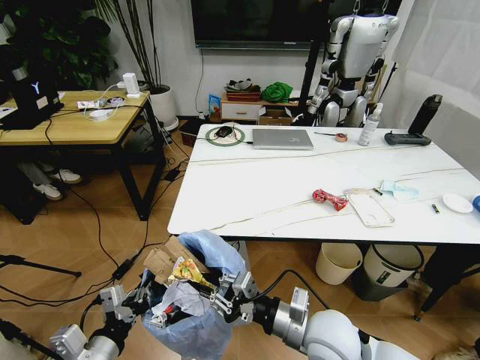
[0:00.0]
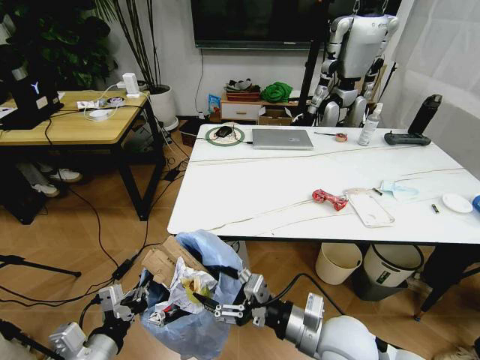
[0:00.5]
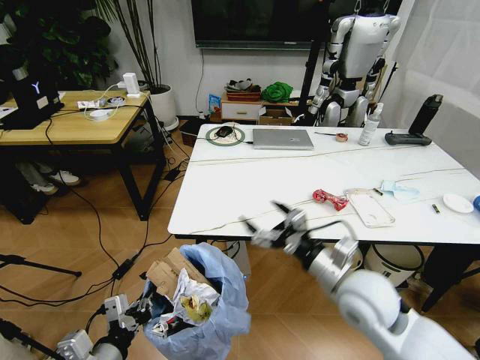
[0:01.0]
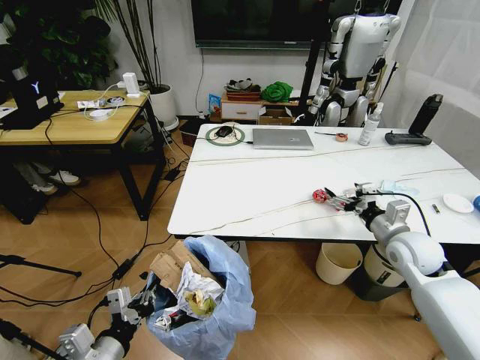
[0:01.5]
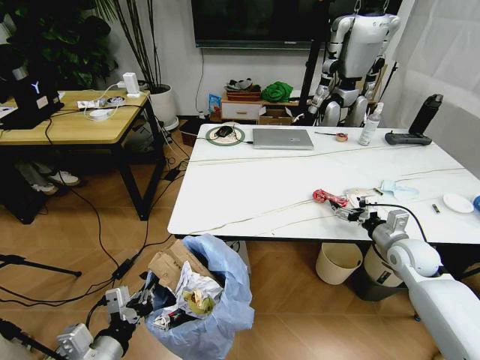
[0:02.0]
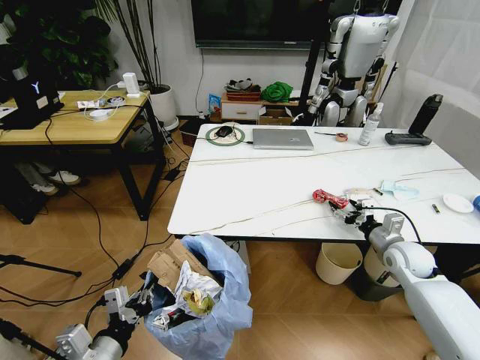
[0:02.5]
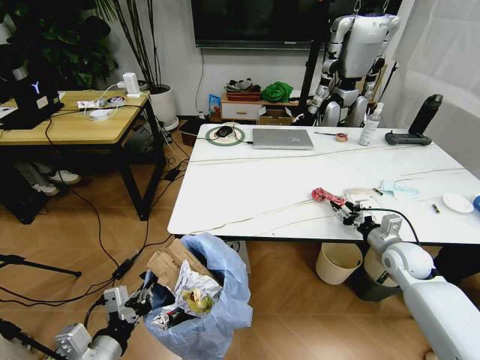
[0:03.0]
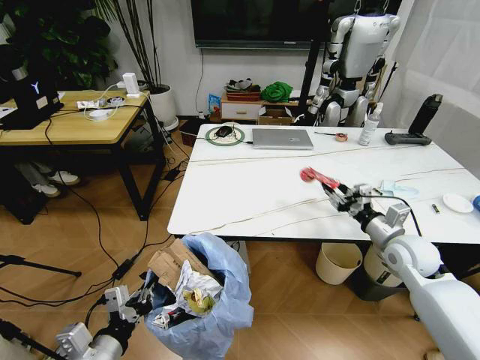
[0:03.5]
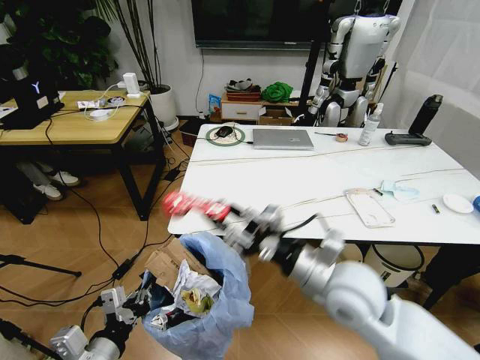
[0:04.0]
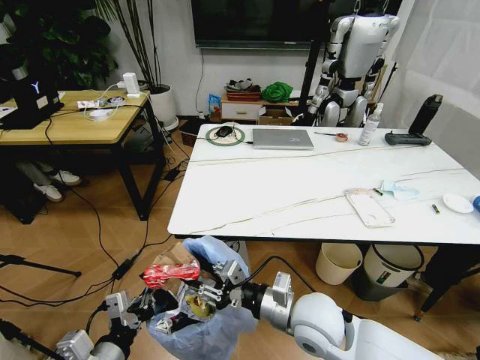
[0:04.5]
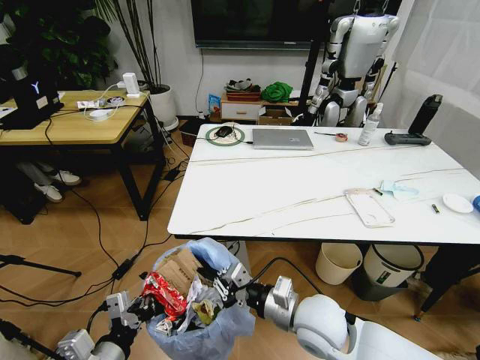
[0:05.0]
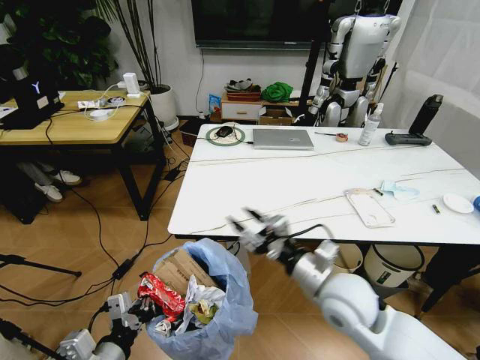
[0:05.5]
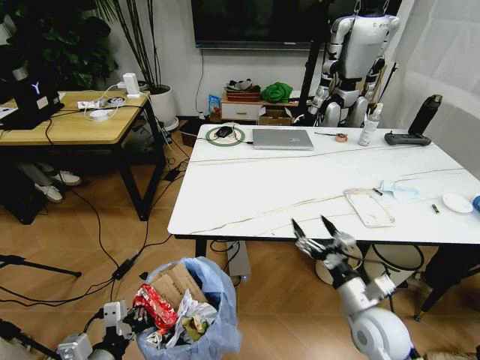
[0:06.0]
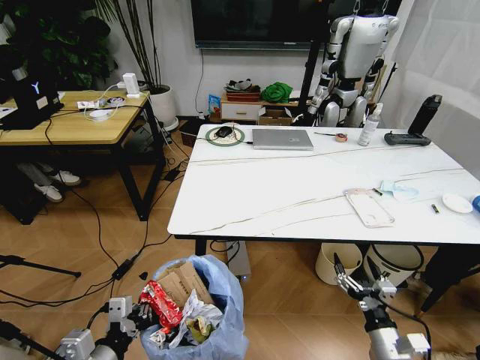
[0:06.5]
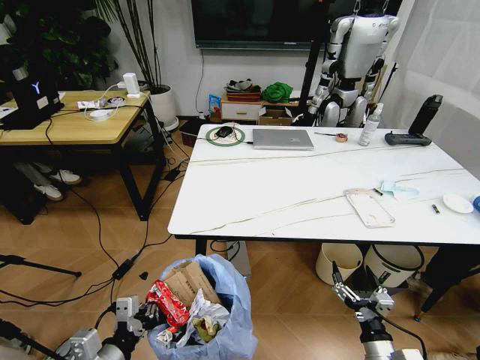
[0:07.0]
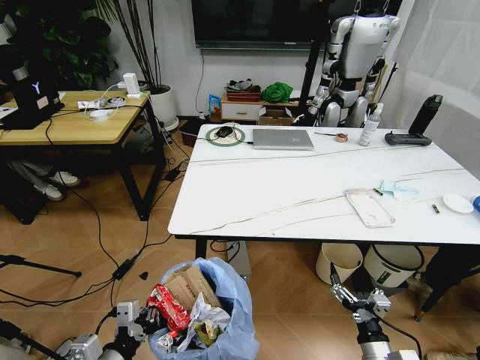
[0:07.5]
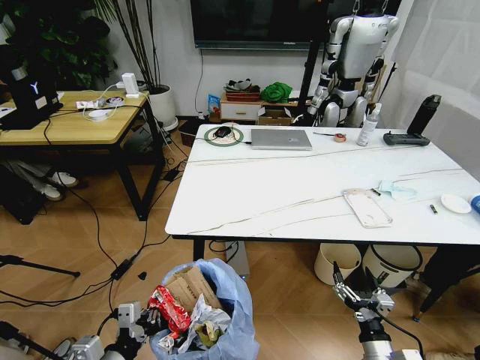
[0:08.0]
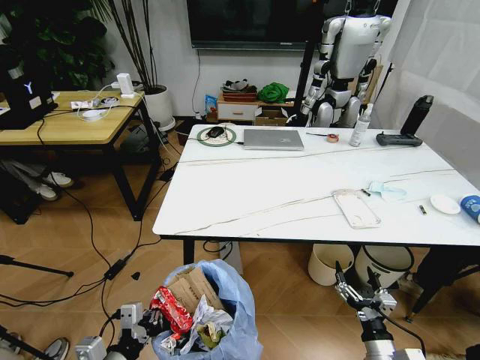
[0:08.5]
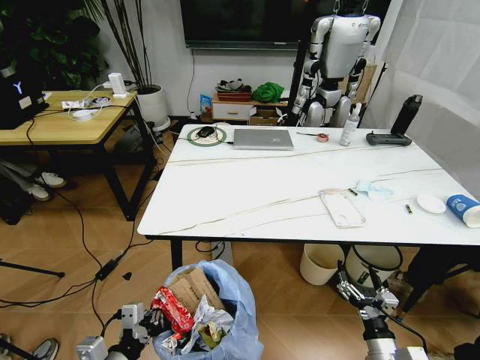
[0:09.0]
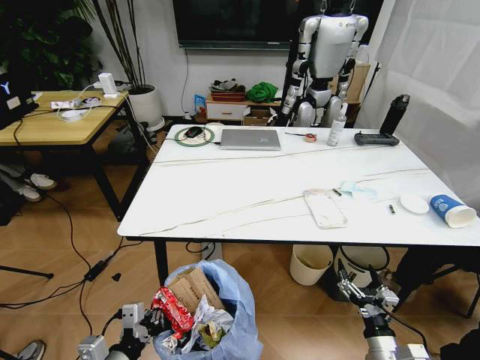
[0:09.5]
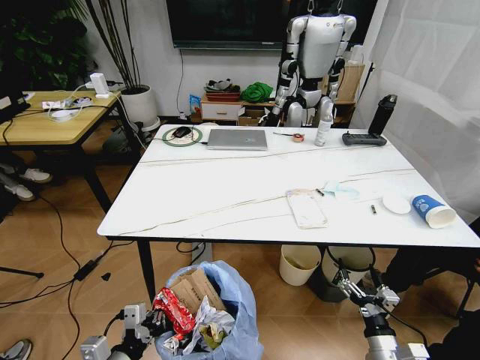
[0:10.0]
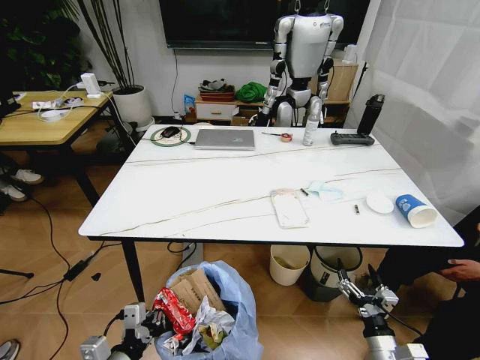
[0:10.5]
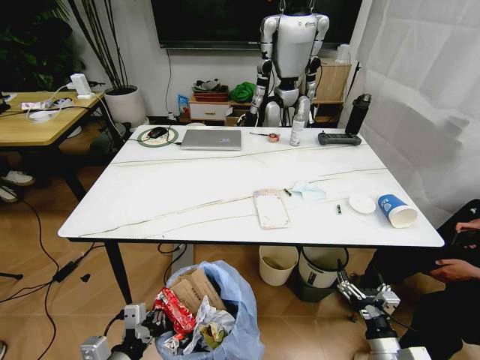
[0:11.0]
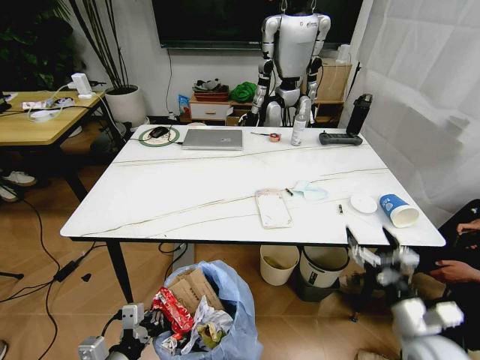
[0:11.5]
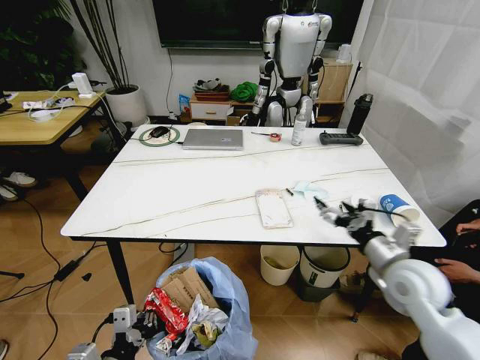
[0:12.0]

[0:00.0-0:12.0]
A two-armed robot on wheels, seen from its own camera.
Task of the whole recording: Pick up the trash bin and place the trash from the table into it.
0:00.0 to 0:02.0: The right gripper travels to the right and forward by about 30 cm, and opens up.
0:02.0 to 0:04.0: The right gripper is displaced to the left, backward and upward by some 30 cm, and closes its fingers.
0:04.0 to 0:06.0: The right gripper goes up and down, roughly 15 cm each way, reversing 2 times, and opens.
0:06.0 to 0:08.0: The right gripper goes some 15 cm downward and backward.
0:10.0 to 0:12.0: The right gripper goes approximately 25 cm upward and forward.

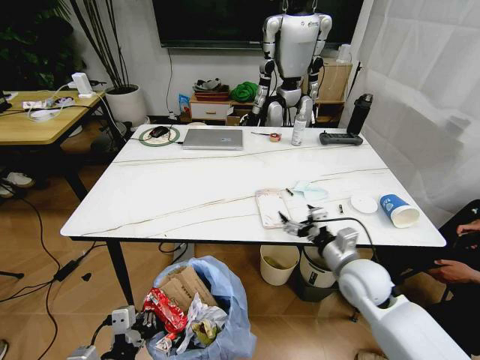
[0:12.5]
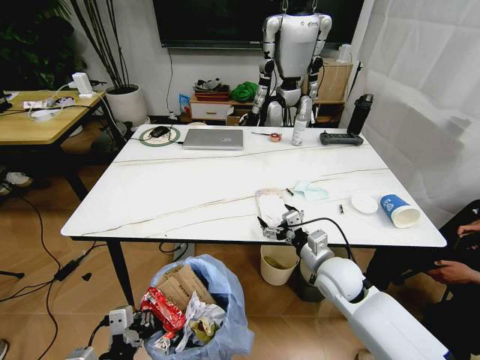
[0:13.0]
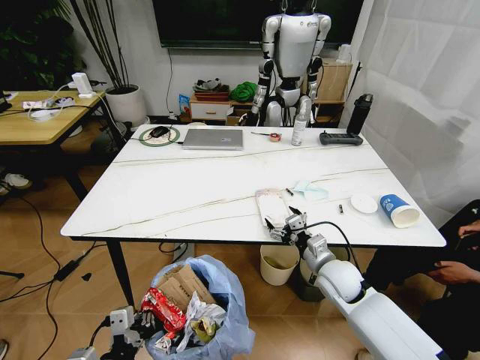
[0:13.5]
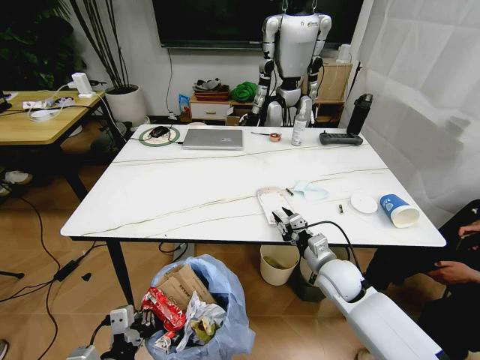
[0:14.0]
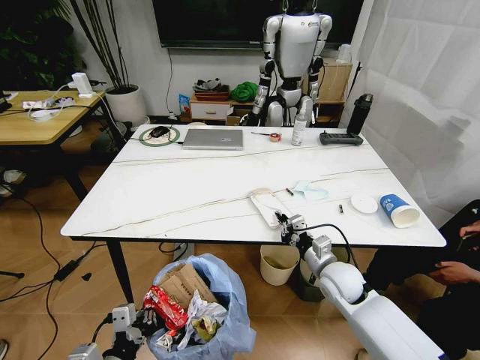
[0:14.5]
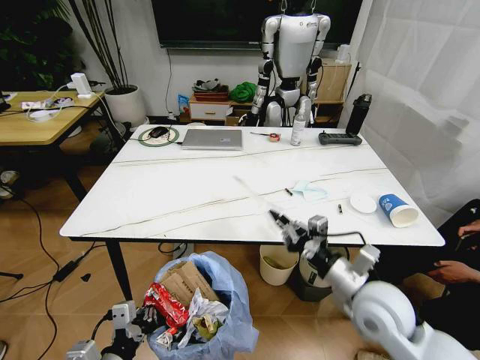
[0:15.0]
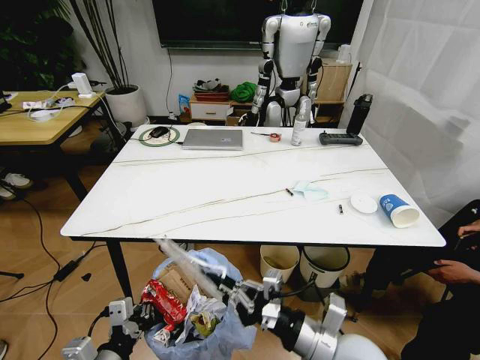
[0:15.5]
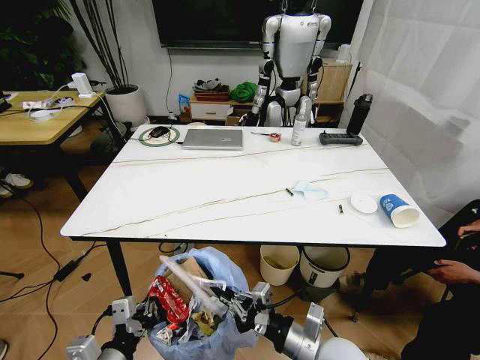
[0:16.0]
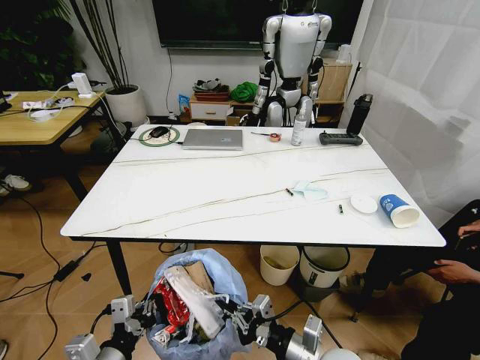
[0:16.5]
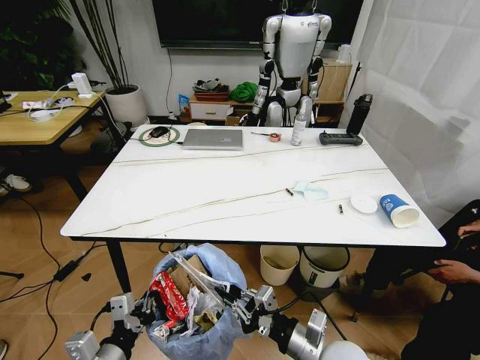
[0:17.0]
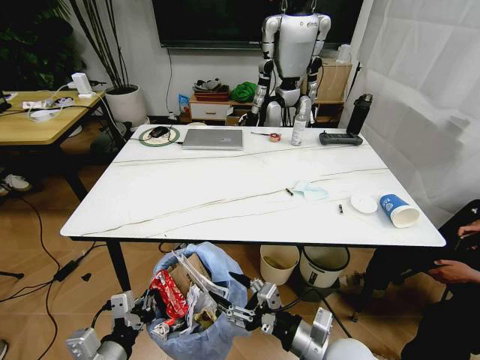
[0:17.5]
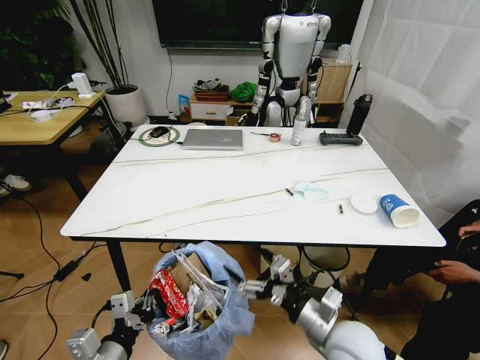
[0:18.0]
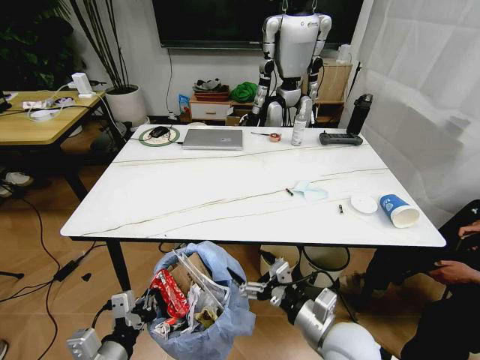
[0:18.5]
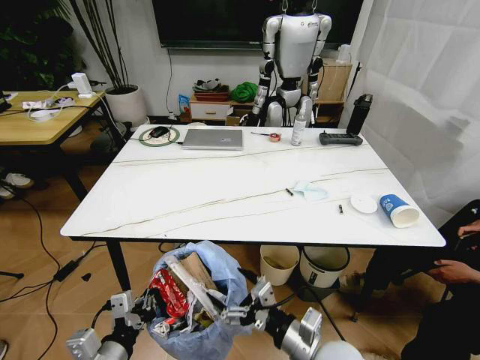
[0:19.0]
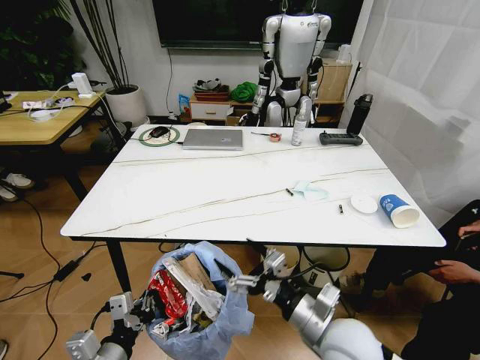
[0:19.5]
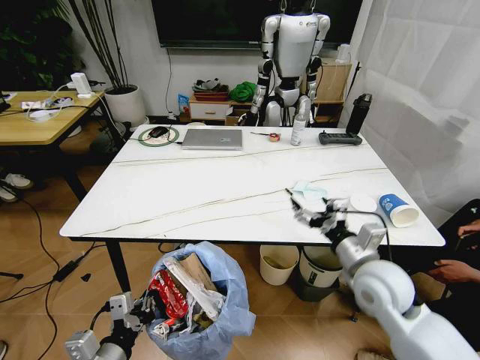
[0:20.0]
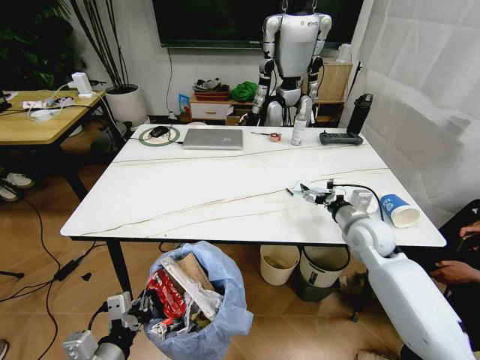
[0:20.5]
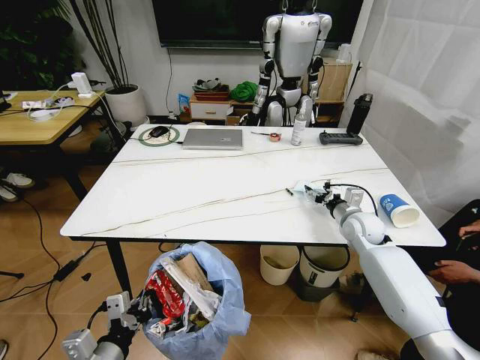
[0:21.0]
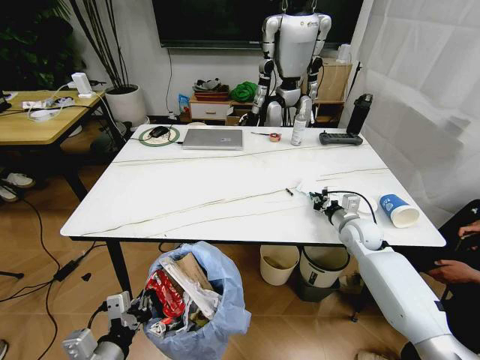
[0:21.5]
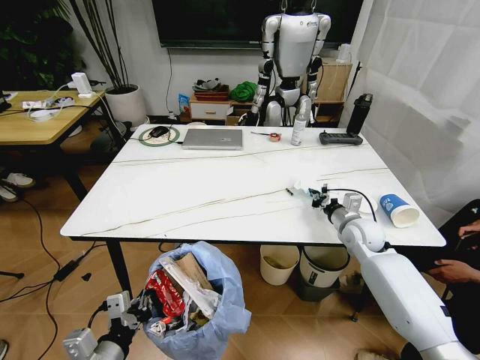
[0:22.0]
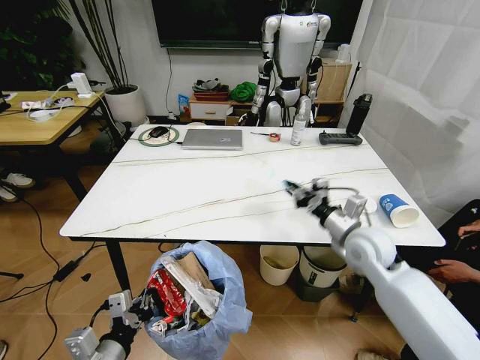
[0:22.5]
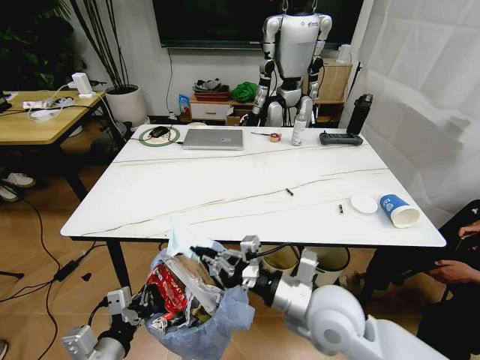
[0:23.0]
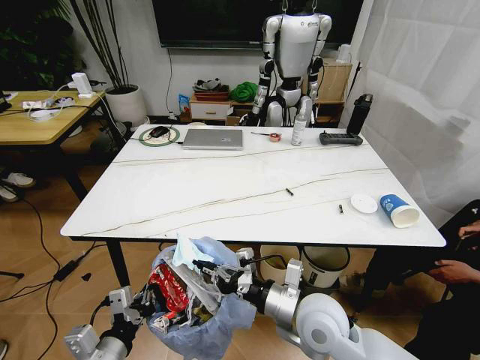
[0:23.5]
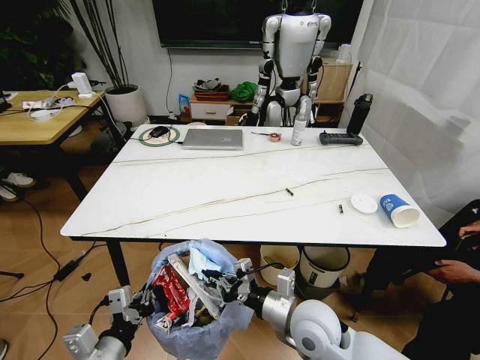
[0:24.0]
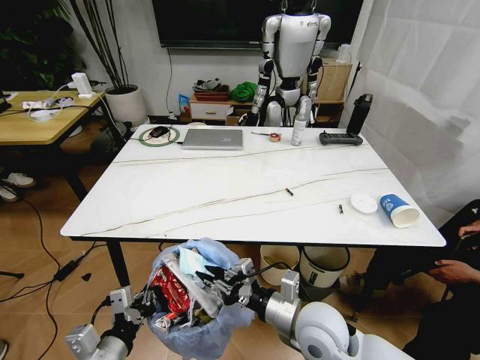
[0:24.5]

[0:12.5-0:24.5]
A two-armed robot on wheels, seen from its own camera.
Task of the whole recording: Pick up the trash bin and place the trash from the table into it.
0:12.5 to 0:14.5: The right gripper moves downward, roughly 5 cm, and closes up.
0:14.5 to 0:16.5: The right gripper travels backward by approximately 20 cm.
0:16.5 to 0:18.5: The right gripper opens.
0:18.5 to 0:20.5: The right gripper travels forward and to the right by approximately 25 cm.
0:20.5 to 0:22.5: The right gripper moves roughly 5 cm, and closes up.
0:22.5 to 0:24.5: The right gripper moves backward and to the left, approximately 20 cm.

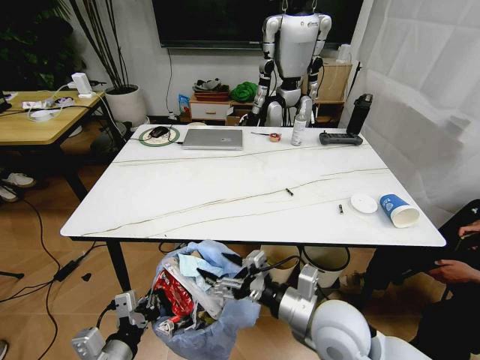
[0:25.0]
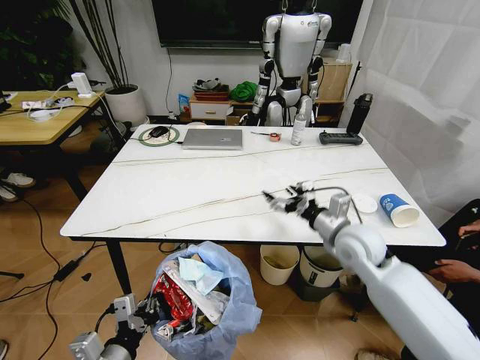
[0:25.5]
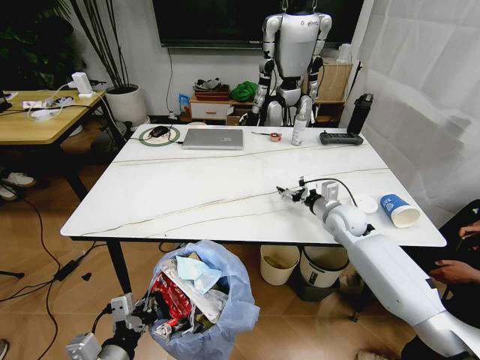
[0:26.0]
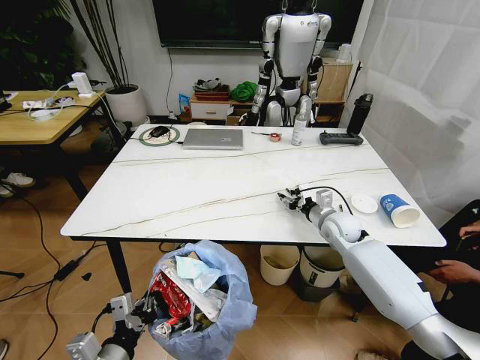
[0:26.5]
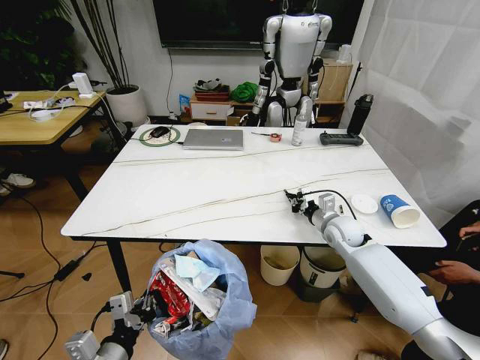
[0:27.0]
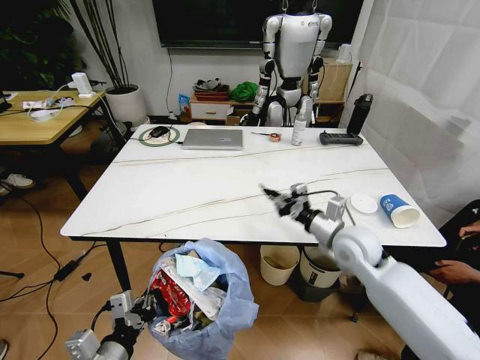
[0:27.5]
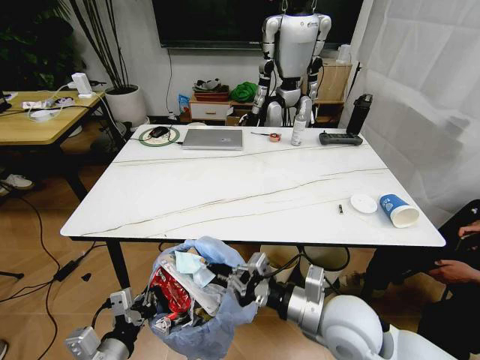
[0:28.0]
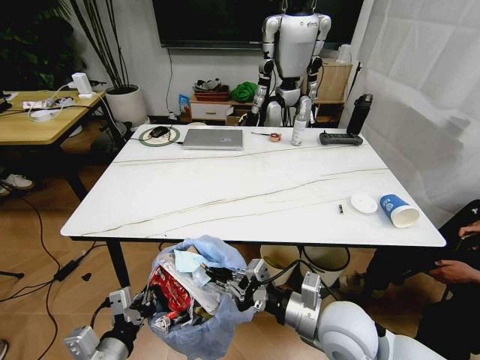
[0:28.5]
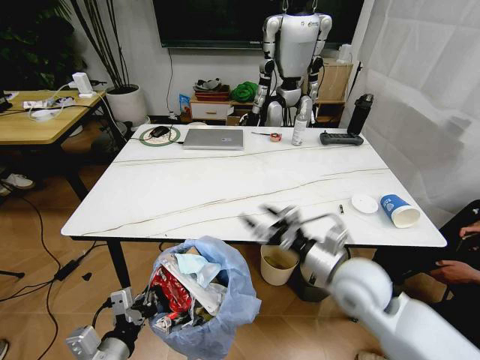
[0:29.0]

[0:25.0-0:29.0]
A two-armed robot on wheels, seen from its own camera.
Task of the whole recording: Pick up the trash bin and place the trash from the table into it.
0:25.0 to 0:27.0: The right gripper goes approximately 30 cm forward and to the right, and closes.
0:27.0 to 0:29.0: The right gripper travels backward and upward by some 20 cm, and opens.
